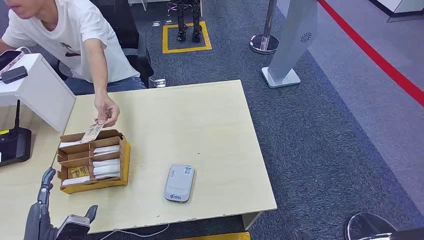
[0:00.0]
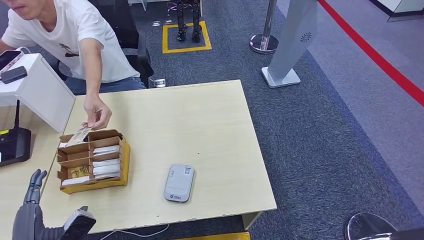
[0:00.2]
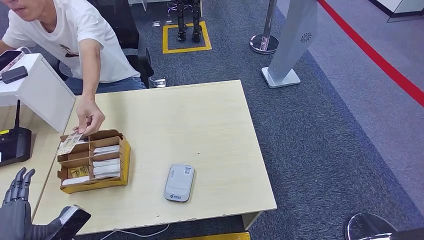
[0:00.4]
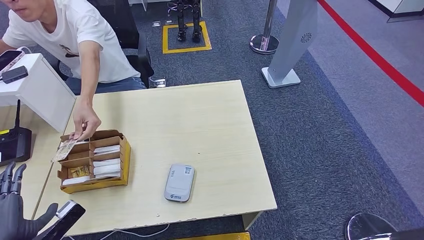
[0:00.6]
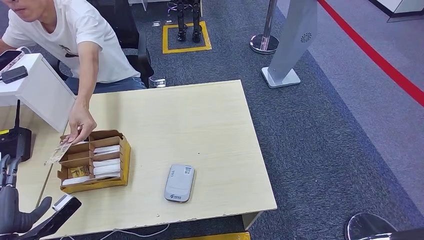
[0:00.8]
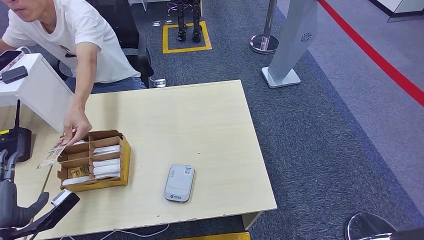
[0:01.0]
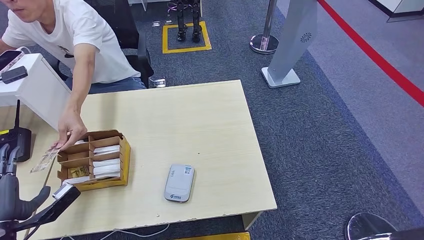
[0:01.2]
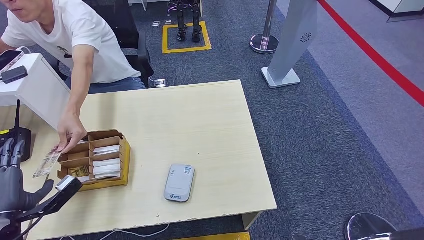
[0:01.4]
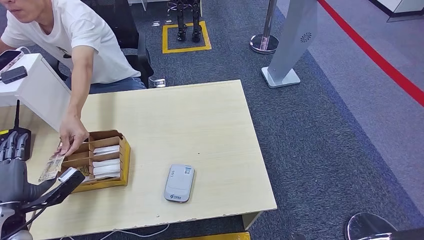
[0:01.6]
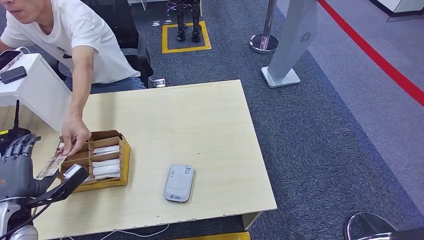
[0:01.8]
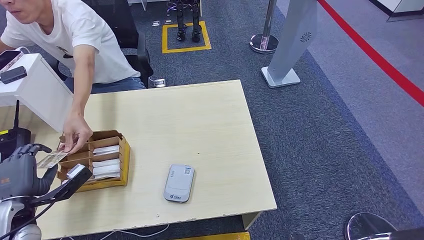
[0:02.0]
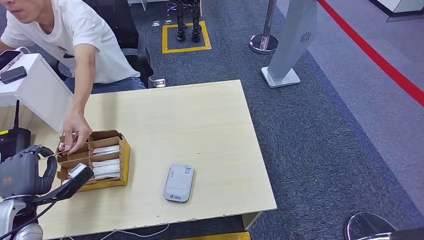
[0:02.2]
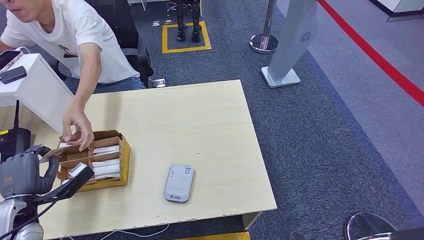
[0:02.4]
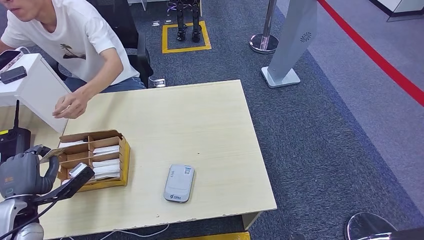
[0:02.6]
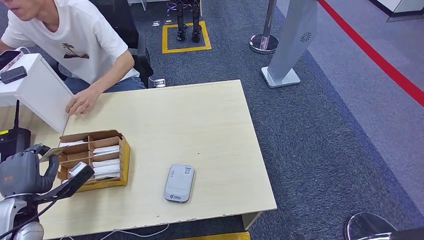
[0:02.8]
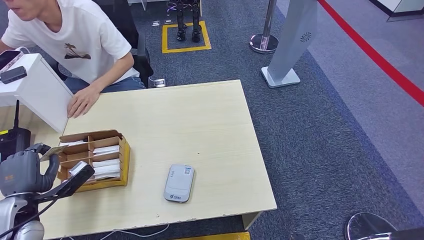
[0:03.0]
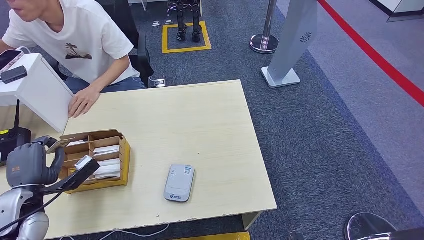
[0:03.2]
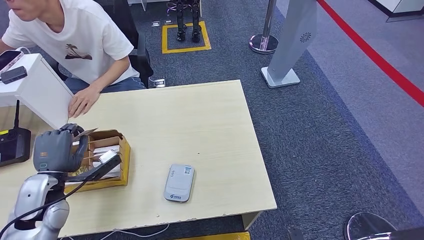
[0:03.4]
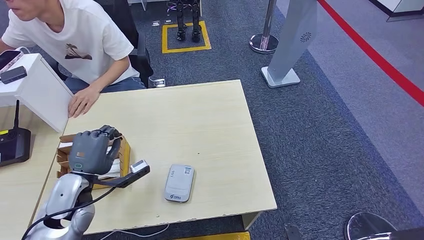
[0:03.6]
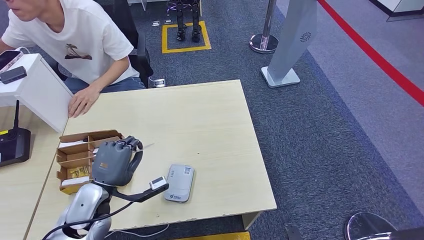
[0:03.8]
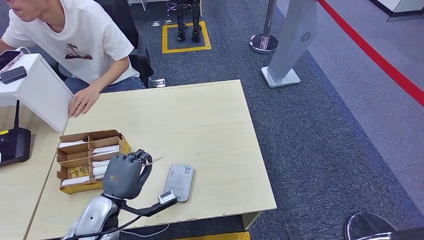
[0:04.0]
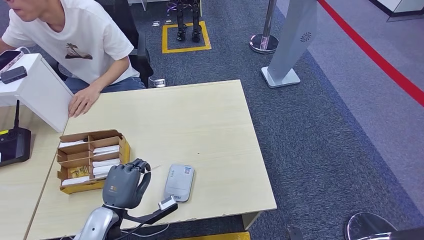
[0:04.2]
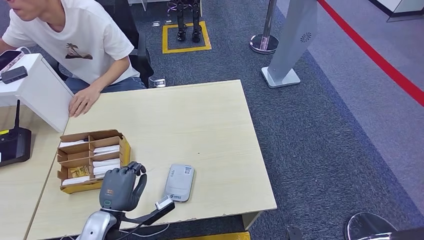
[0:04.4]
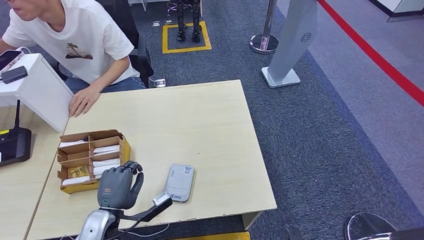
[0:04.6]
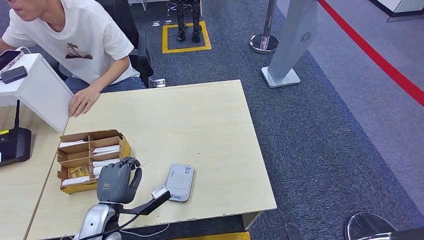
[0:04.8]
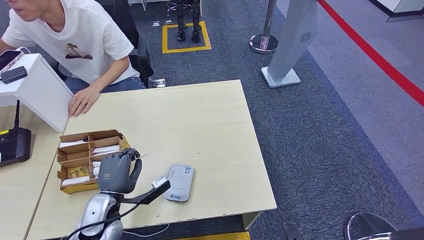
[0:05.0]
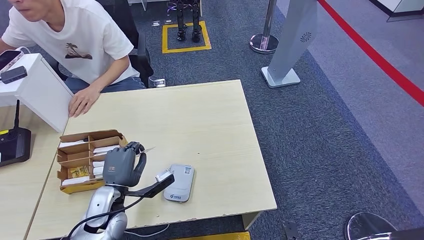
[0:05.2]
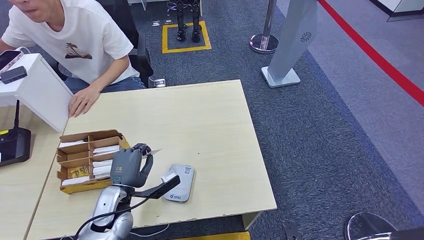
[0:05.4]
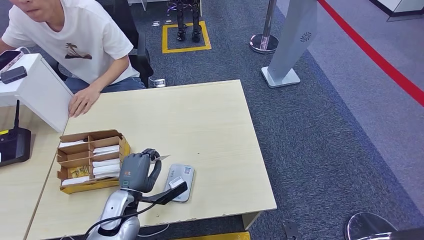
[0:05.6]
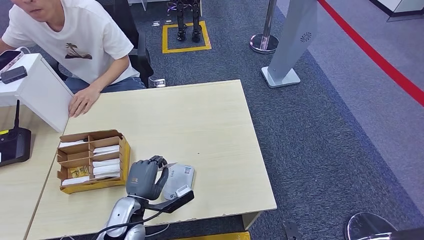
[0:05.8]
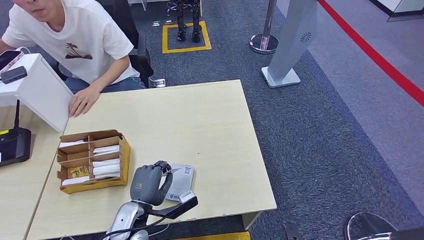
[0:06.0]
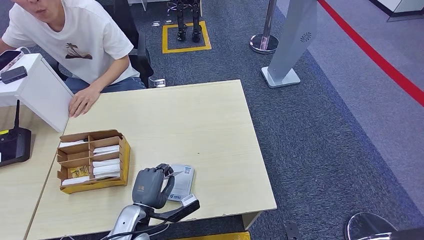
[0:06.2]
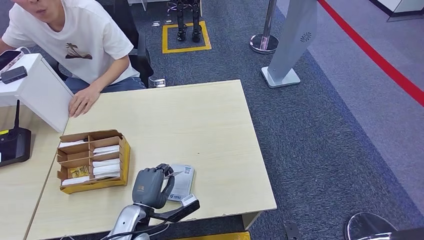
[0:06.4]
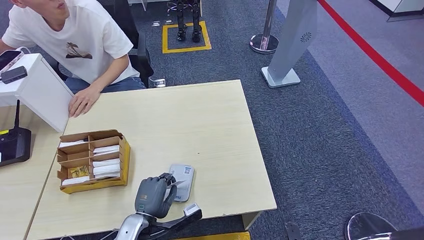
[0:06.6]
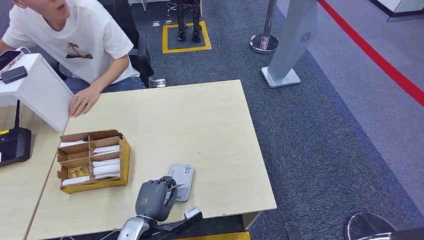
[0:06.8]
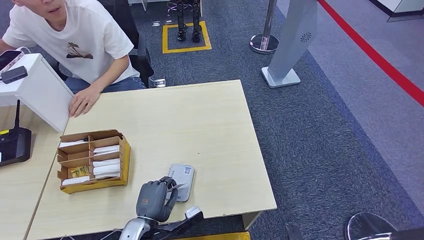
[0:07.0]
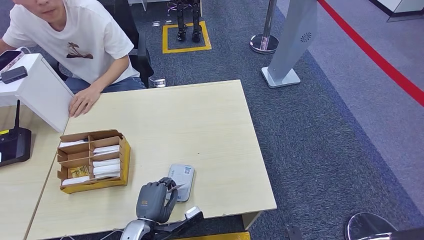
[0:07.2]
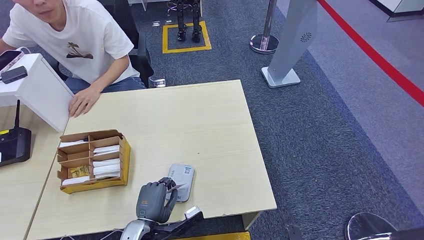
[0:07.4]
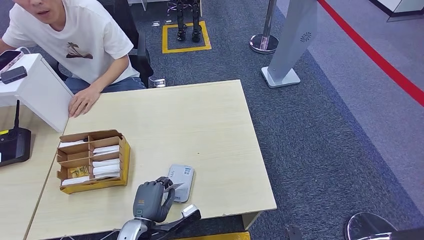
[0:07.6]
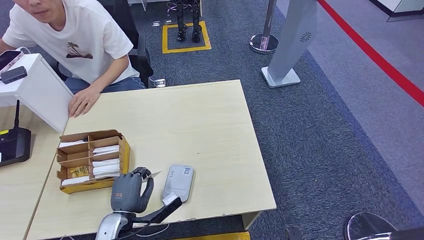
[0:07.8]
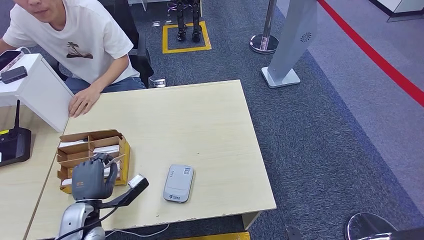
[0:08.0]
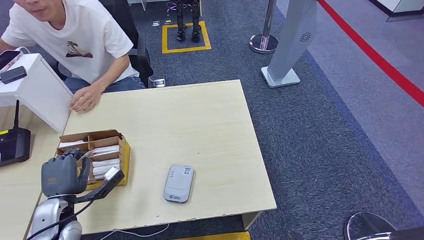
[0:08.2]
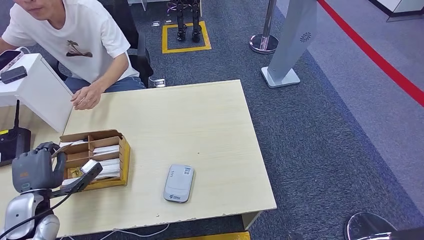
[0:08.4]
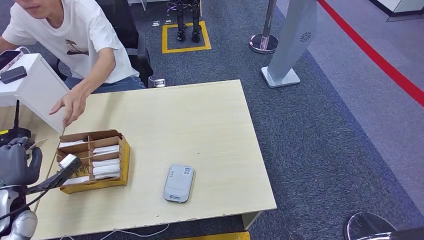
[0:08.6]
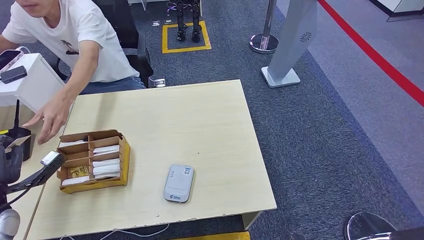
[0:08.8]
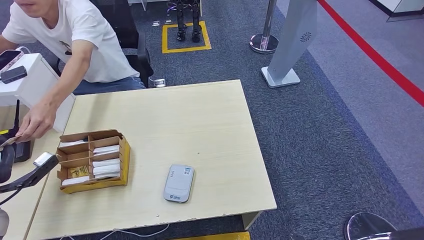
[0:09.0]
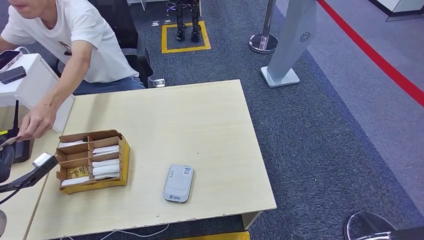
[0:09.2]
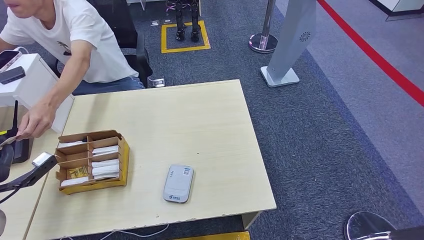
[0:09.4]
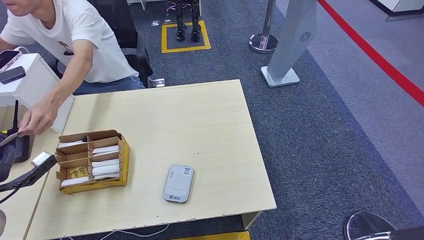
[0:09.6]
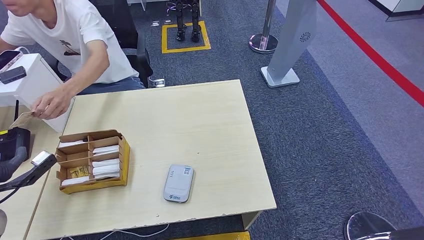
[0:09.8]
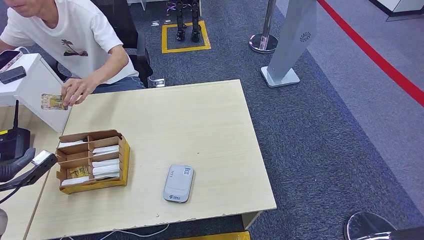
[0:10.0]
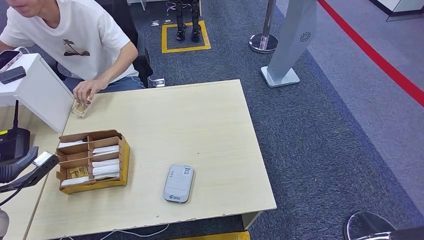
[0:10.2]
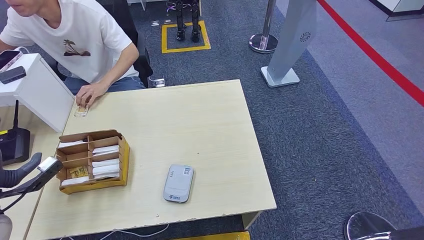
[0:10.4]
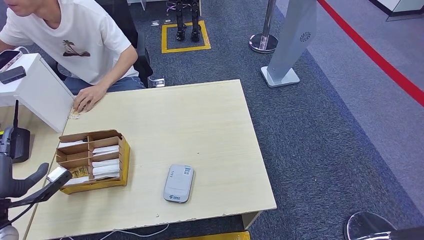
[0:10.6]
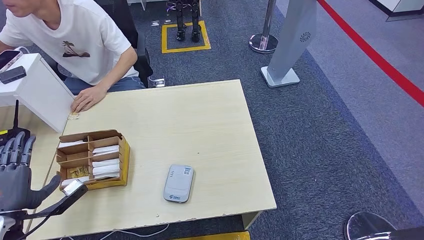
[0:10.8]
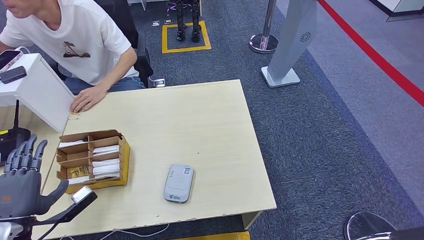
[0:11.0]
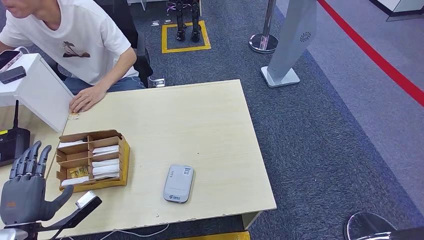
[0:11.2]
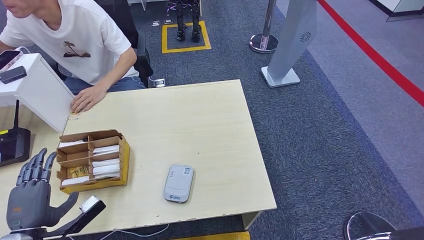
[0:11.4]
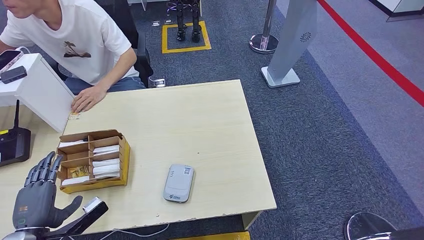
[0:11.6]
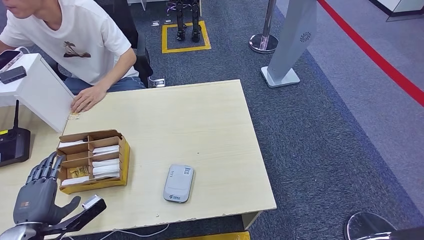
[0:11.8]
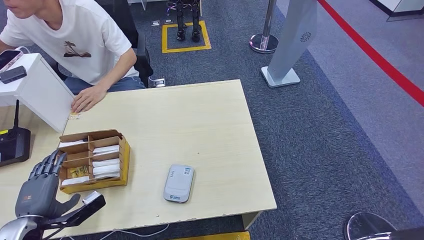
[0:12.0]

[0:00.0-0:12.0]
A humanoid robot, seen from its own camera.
Step, 0.0 to 2.8 s: Take the ID card from the person's hand.
Step, 3.2 to 8.0 s: Place the ID card on the card reader.
Step, 8.2 to 10.2 s: Hand the ID card to the person.
1.6 to 3.0 s: There are only small adjustments of the hands.
3.0 to 4.4 s: The left hand shifts approximately 15 cm to the right.
4.4 to 6.0 s: The left hand is displaced to the right by approximately 5 cm.
6.0 to 7.6 s: There are only small adjustments of the hands.
7.6 to 9.0 s: The left hand goes roughly 30 cm to the left.
9.0 to 10.4 s: The hands stay close to where they were, moving slightly.
10.4 to 12.0 s: The left hand shifts approximately 10 cm to the right and backward.

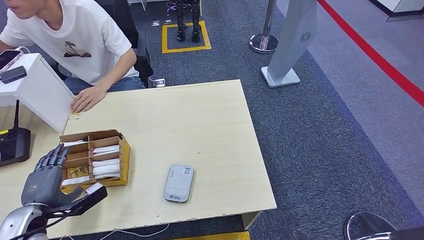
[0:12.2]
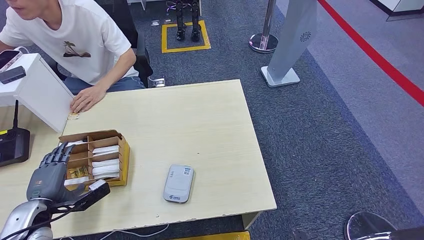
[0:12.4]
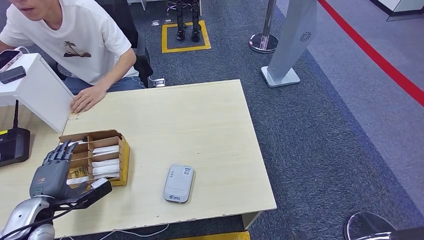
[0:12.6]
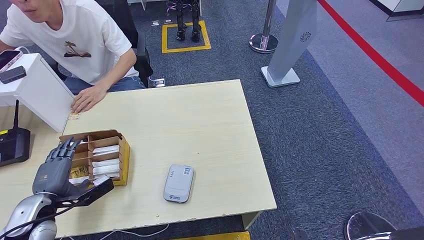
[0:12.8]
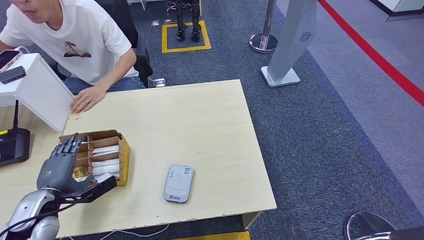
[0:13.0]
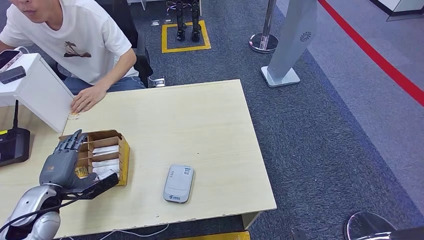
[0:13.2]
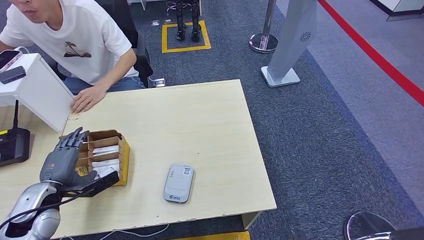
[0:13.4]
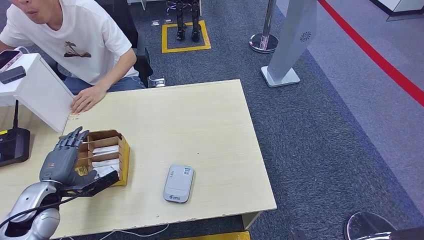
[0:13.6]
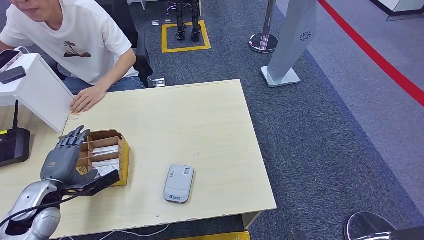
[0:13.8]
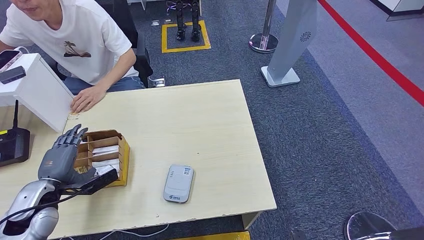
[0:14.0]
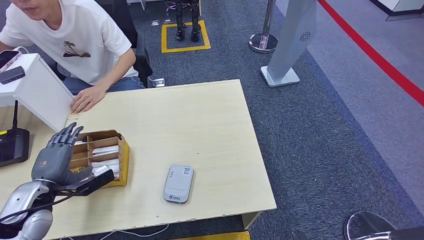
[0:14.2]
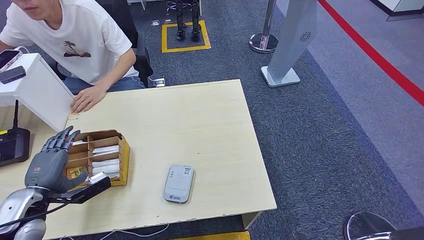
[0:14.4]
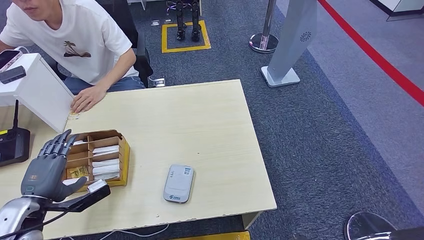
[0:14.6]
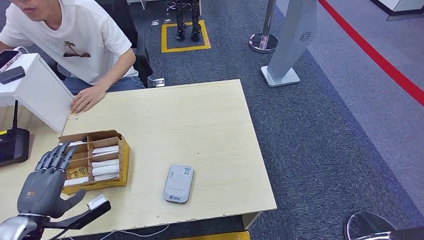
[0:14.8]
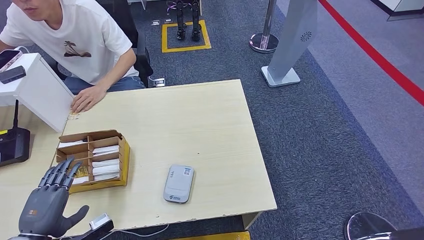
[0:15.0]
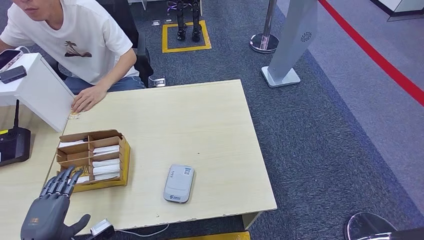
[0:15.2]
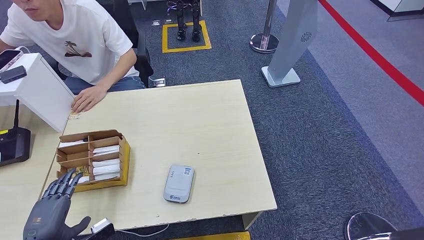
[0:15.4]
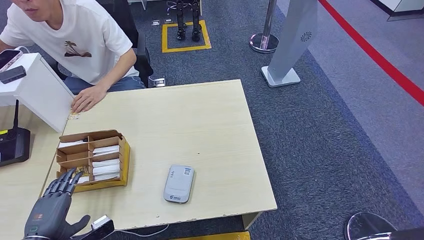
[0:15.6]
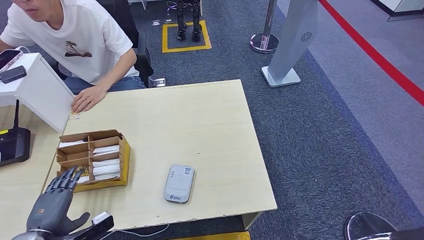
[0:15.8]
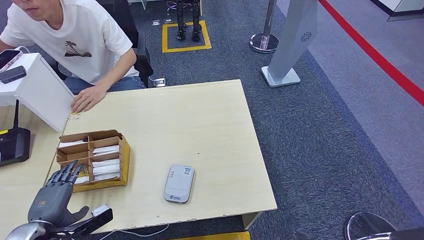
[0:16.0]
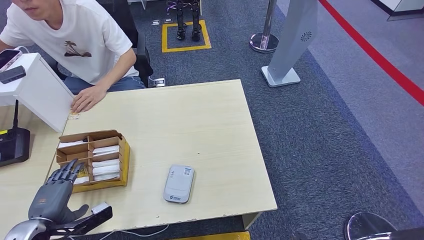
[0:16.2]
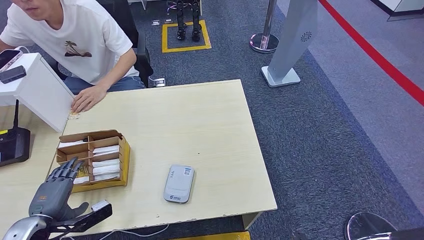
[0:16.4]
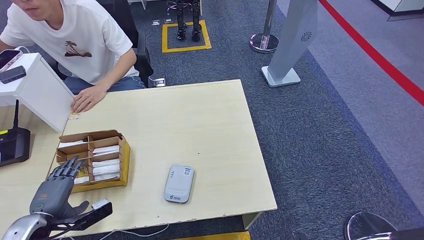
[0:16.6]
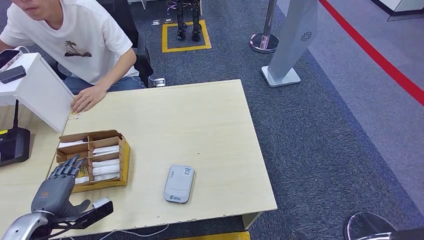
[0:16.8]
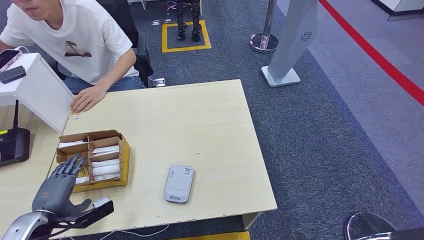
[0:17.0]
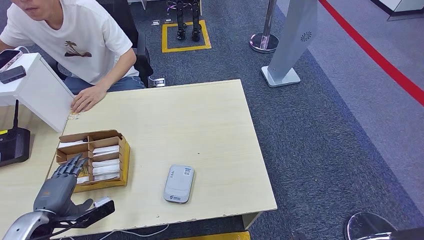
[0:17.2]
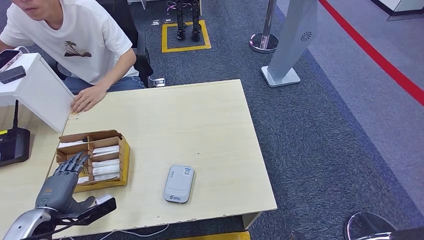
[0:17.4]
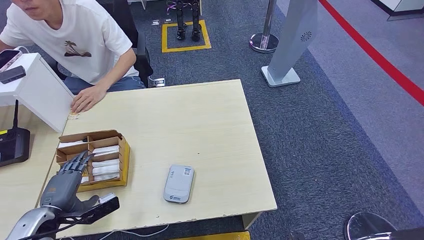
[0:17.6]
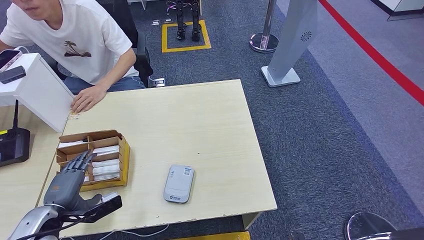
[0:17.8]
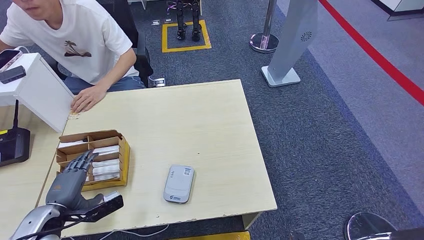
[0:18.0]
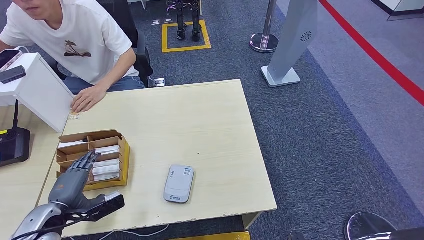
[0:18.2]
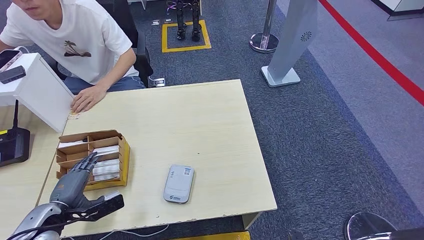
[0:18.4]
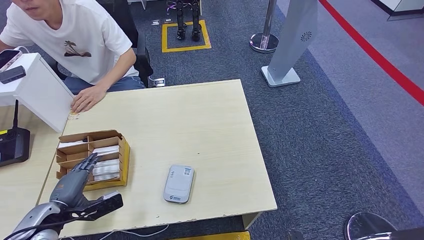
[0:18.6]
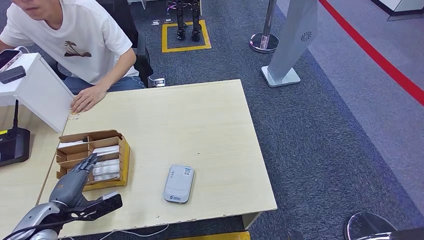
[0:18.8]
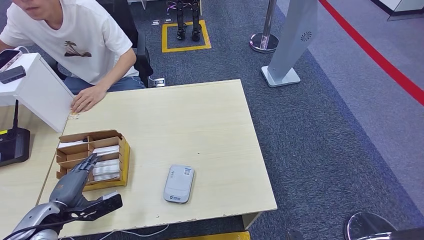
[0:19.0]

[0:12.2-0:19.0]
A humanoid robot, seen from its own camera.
12.2 to 13.6 s: The left hand changes place by some 5 cm.
13.6 to 15.0 s: The left hand travels backward by approximately 10 cm.
15.0 to 16.2 s: The left hand ends up some 5 cm from where it was.
16.2 to 19.0 s: The hands make only small movements.
